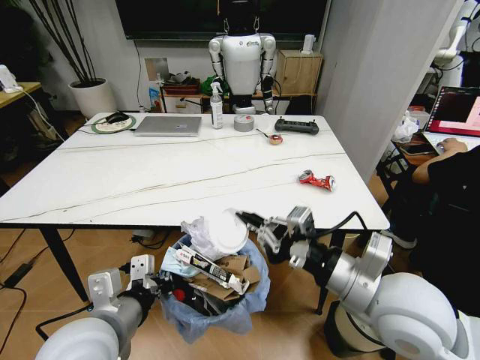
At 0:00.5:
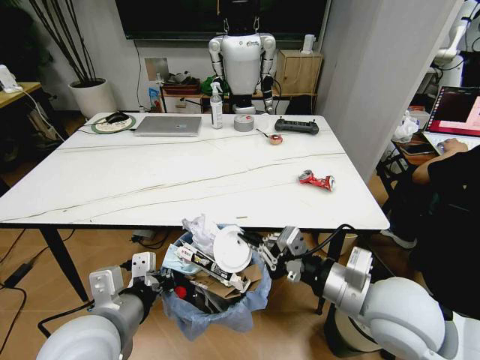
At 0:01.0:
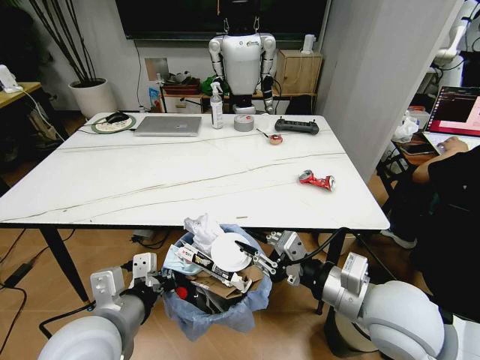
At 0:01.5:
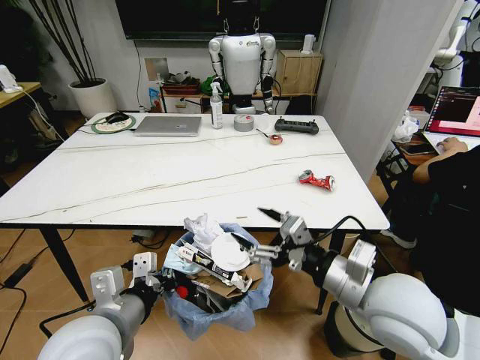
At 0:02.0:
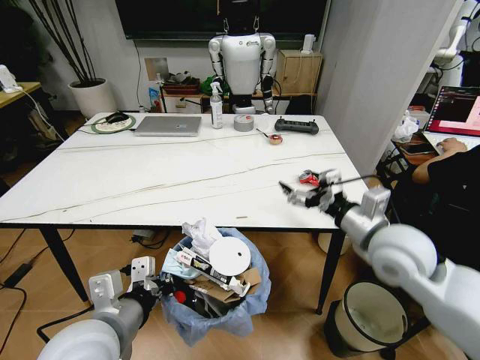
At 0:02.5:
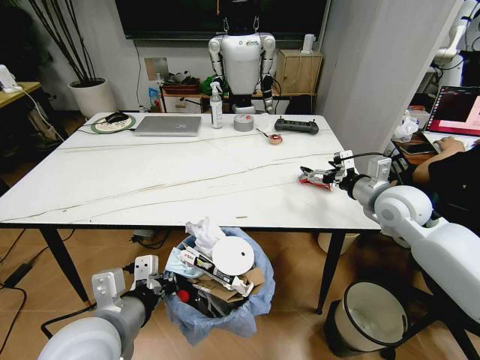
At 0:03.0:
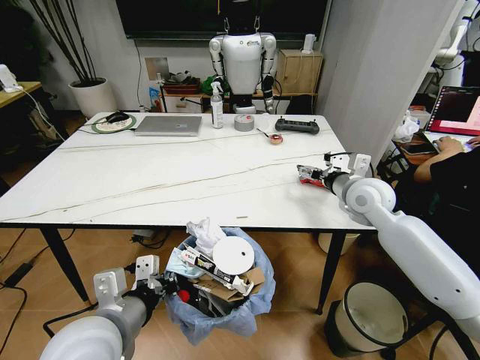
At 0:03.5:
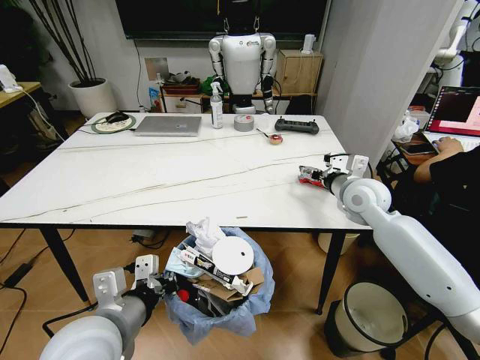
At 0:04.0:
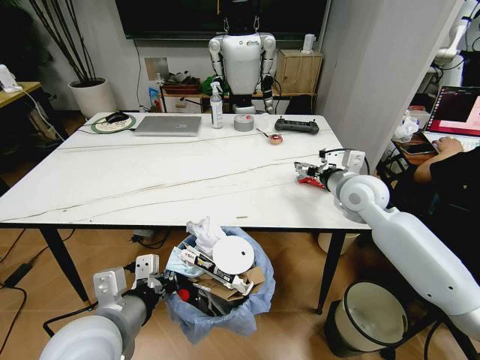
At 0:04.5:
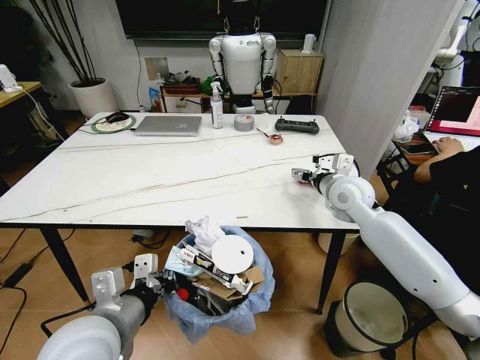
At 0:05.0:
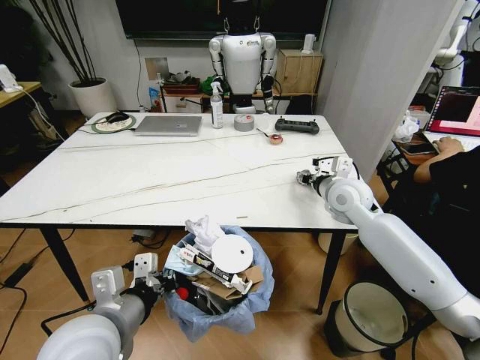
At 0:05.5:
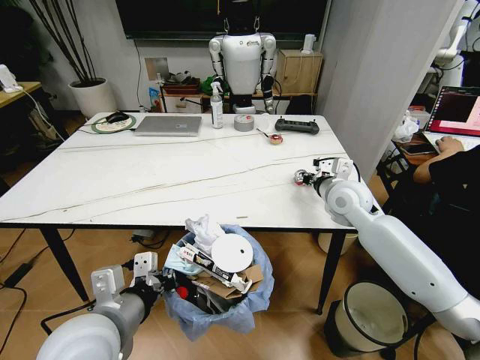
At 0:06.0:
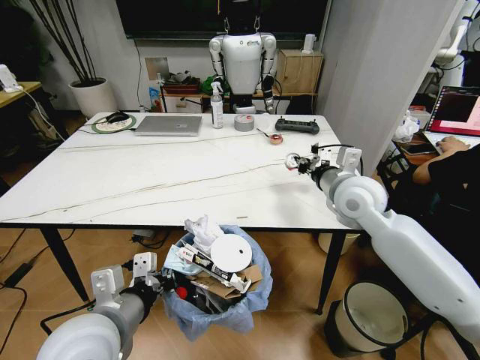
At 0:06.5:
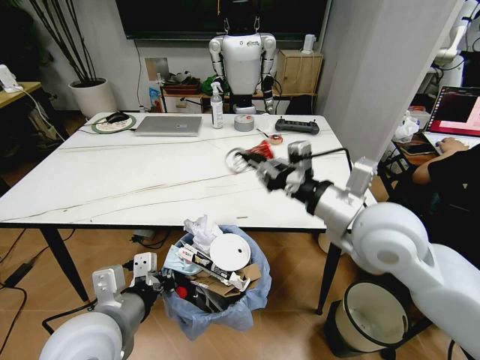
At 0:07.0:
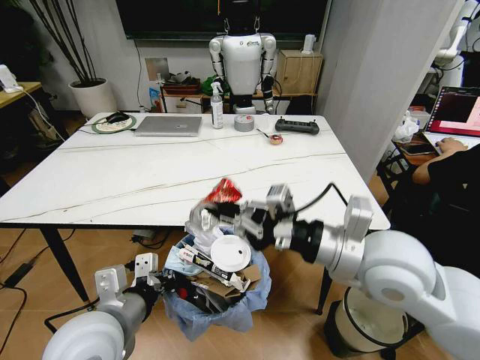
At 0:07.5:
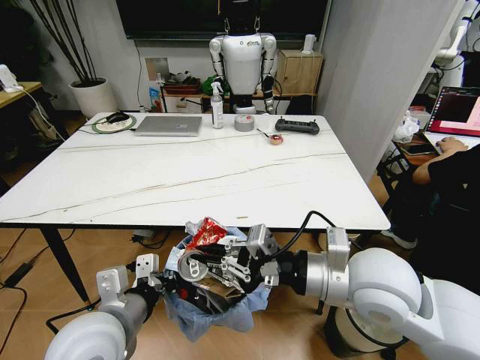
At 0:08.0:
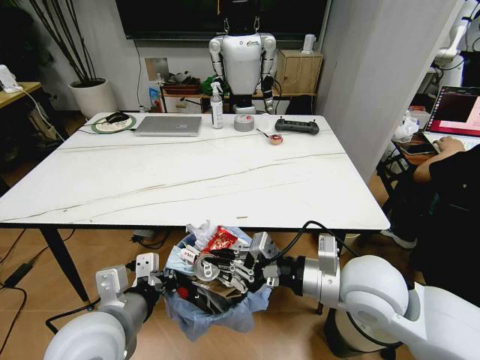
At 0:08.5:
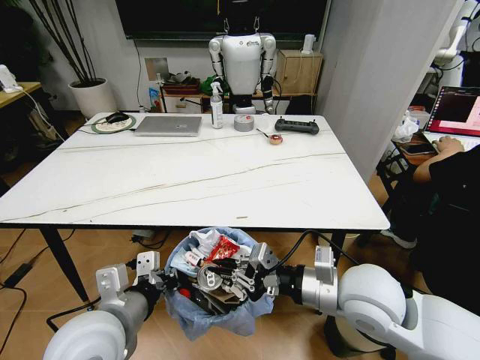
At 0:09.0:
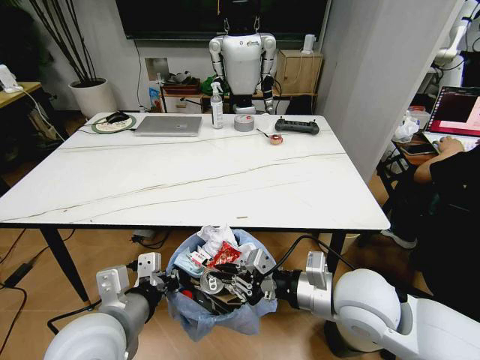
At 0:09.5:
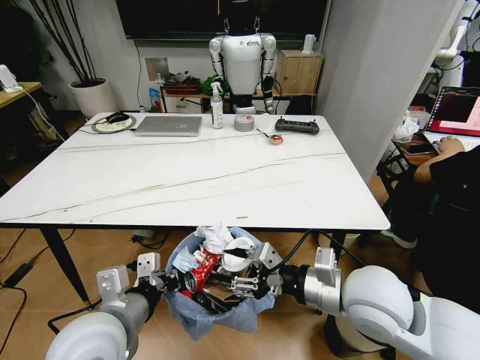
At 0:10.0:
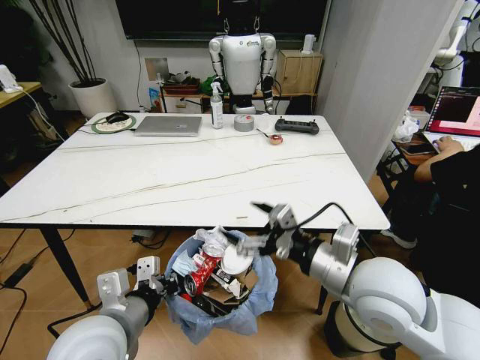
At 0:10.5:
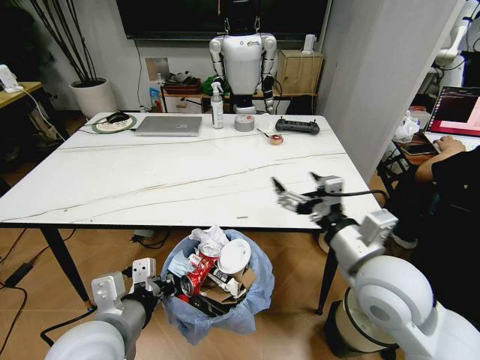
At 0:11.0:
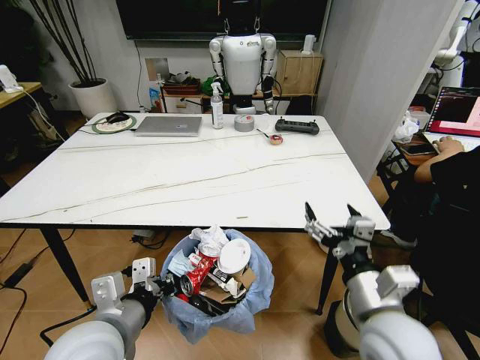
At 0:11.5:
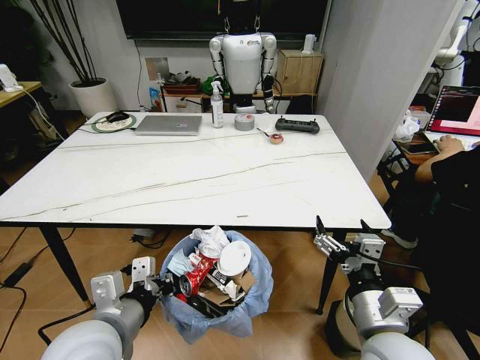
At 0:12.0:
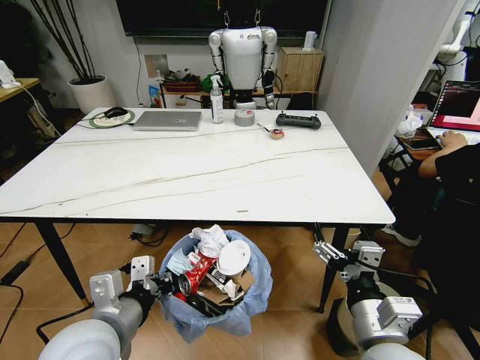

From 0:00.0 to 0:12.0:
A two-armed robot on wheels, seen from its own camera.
Task of the whole recording: Pick up the trash bin and place the trash from the table into it.
From 0:00.0 to 0:02.0: The right gripper is displaced forward and to the right by roughly 10 cm, and opens.
From 0:02.0 to 0:04.0: The right gripper is displaced forward by about 15 cm.
From 0:04.0 to 0:06.0: The right gripper closes its fingers.
From 0:06.0 to 0:08.0: The right gripper moves backward, some 20 cm.
From 0:08.0 to 0:10.0: The right gripper opens up.
From 0:10.0 to 0:12.0: The right gripper goes about 15 cm backward and downward.

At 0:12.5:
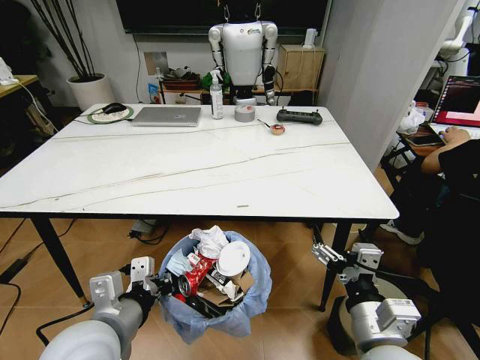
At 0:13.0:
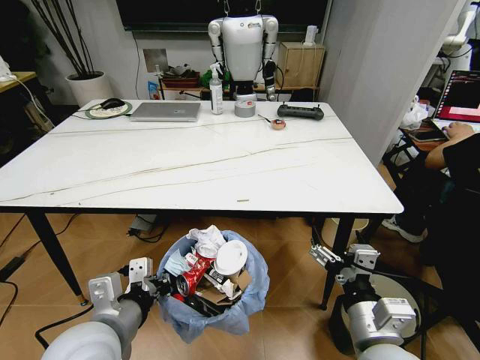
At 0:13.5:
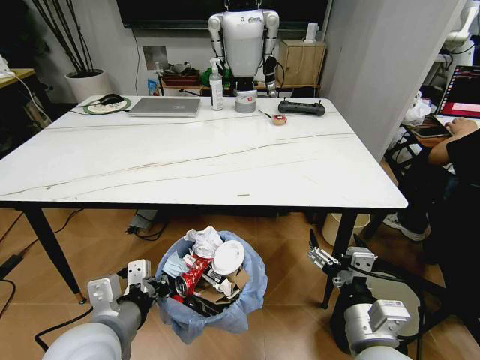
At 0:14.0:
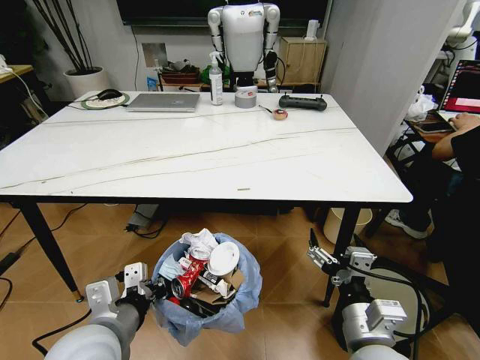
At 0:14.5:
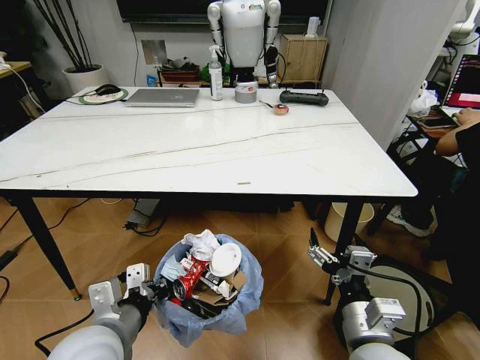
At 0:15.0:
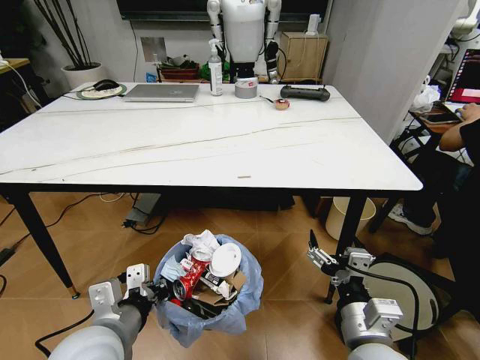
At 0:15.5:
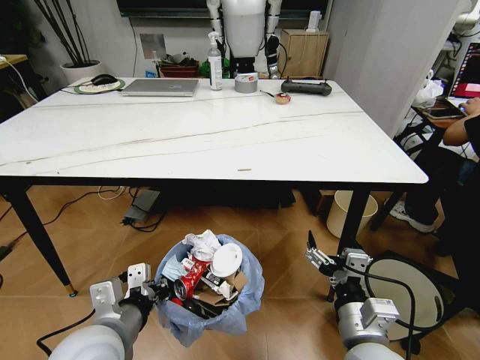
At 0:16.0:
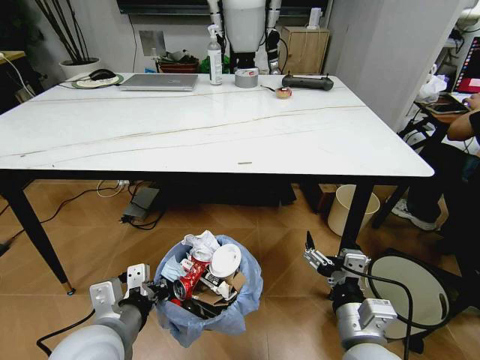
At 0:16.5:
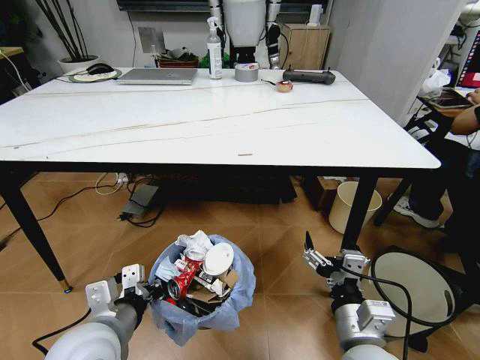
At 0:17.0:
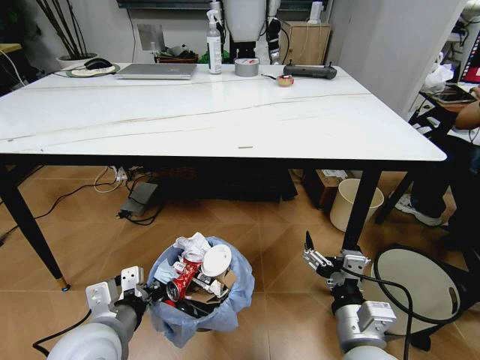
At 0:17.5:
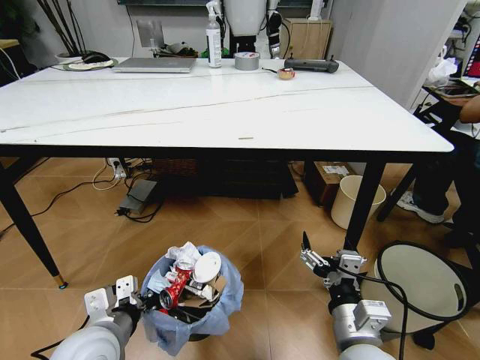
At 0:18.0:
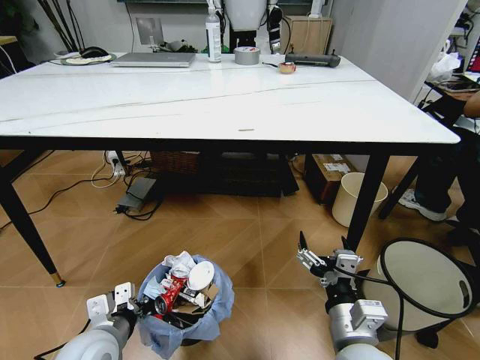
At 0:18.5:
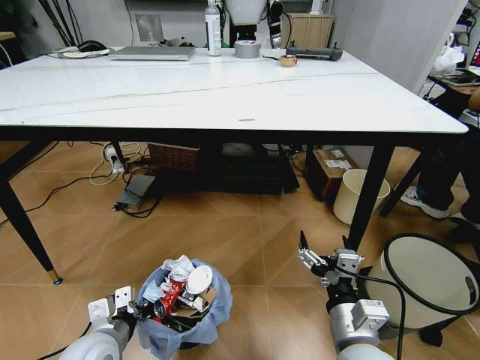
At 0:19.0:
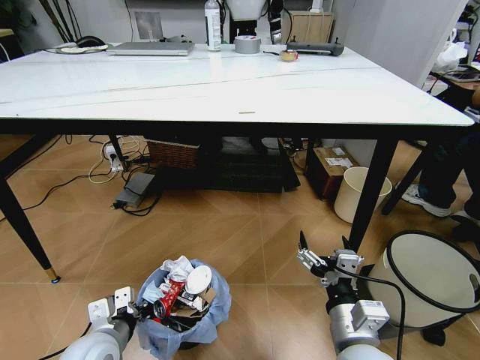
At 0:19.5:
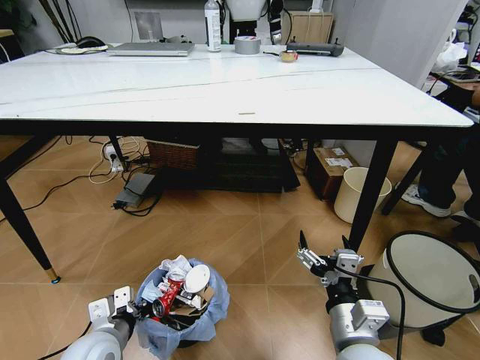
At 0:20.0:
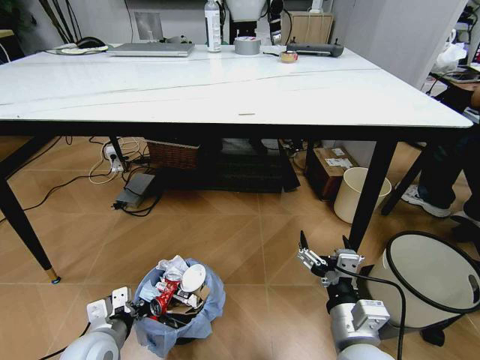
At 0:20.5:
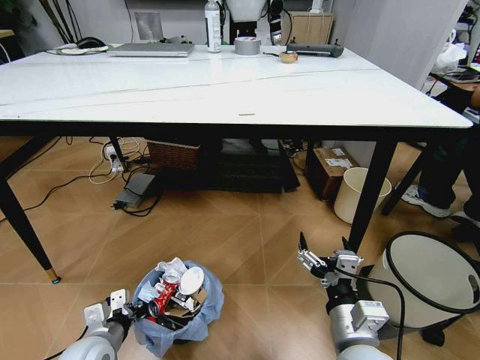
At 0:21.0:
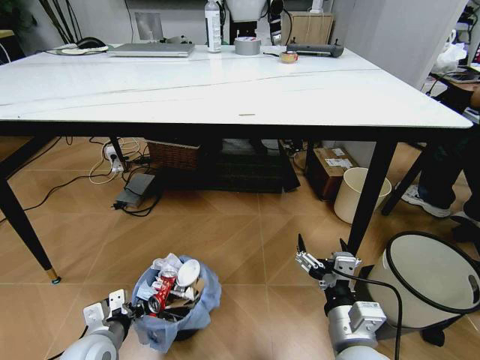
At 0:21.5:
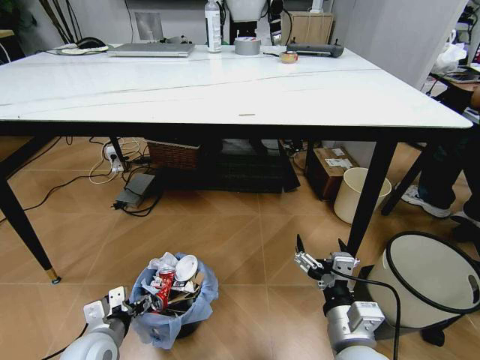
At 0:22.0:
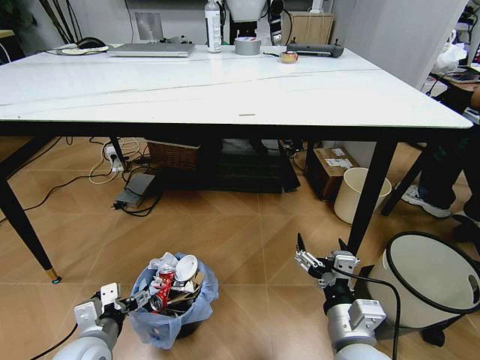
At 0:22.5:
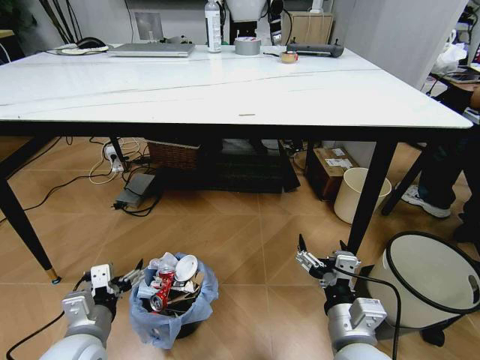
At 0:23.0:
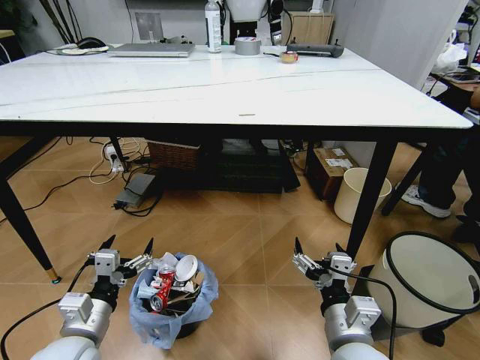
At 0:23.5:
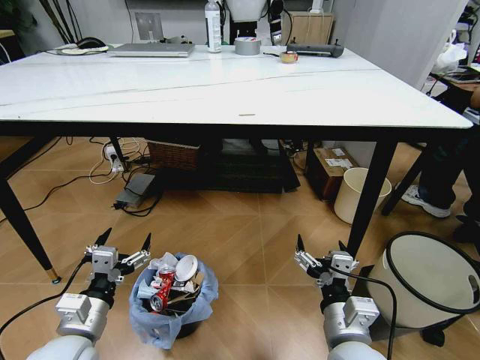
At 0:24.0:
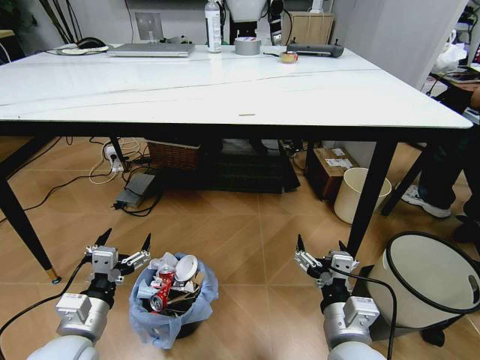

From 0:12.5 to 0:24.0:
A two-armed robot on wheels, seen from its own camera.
Task of the whole recording: Pick up the trash bin and place the trash from the table into it.
From 0:16.5 to 0:18.5: The left gripper goes about 10 cm downward.
From 0:18.5 to 0:20.0: The grippers stay close to where they were, moving slightly.
From 0:20.0 to 0:22.0: The left gripper opens its fingers.
From 0:22.0 to 0:24.0: The left gripper is displaced upward by roughly 5 cm.
